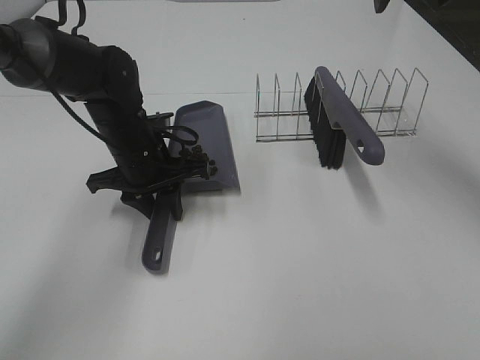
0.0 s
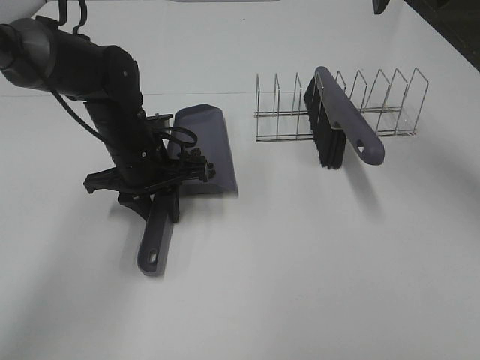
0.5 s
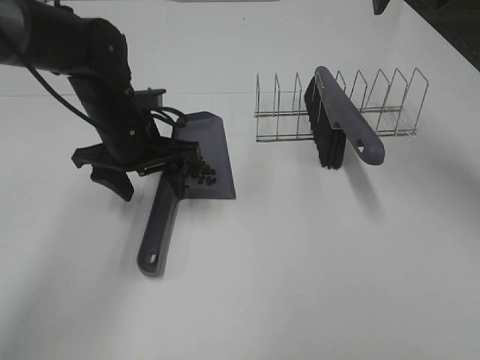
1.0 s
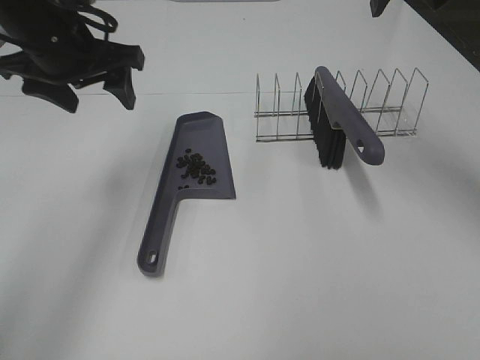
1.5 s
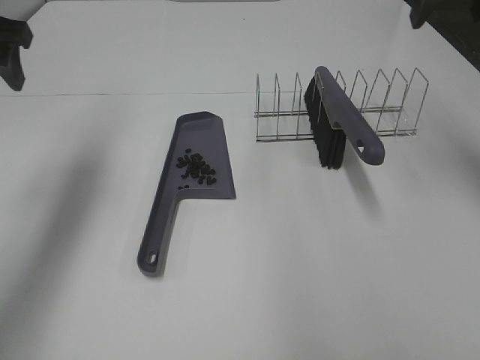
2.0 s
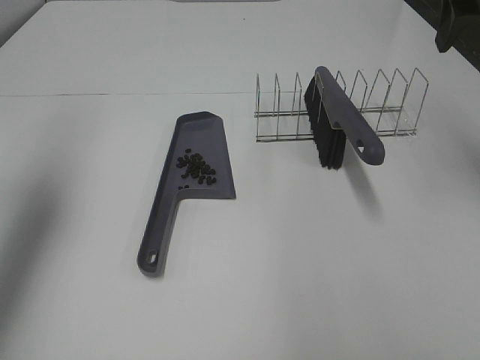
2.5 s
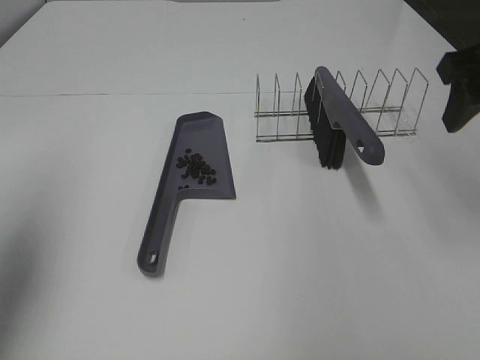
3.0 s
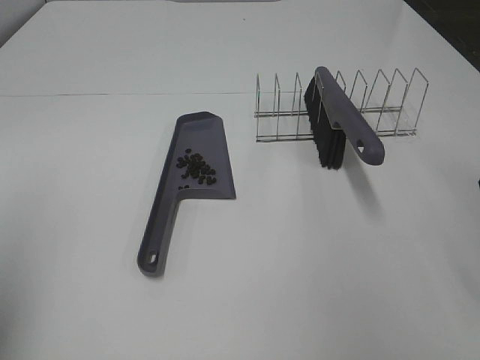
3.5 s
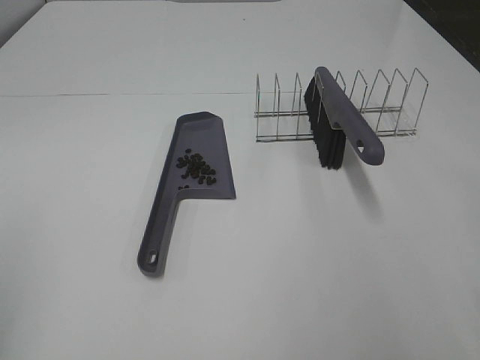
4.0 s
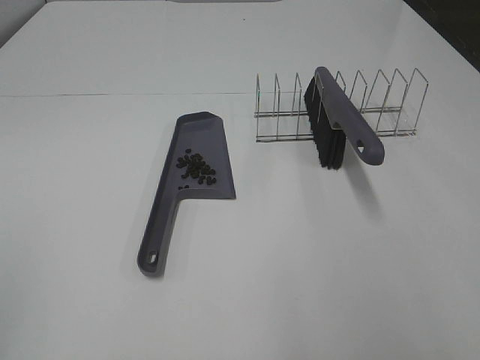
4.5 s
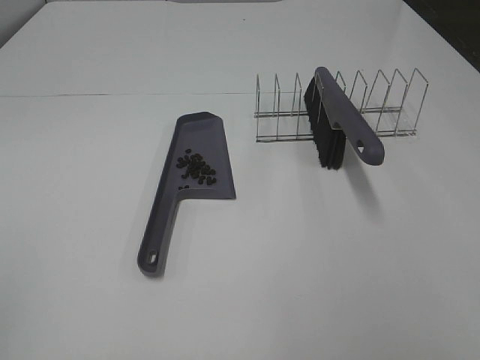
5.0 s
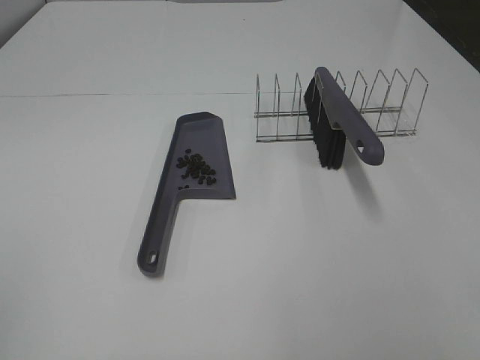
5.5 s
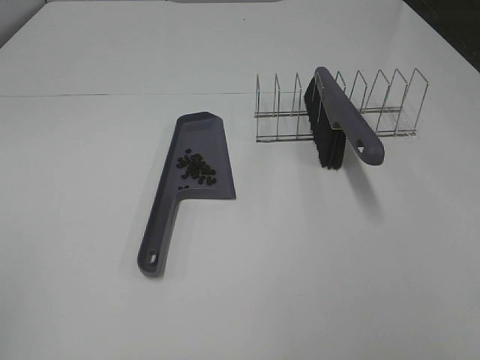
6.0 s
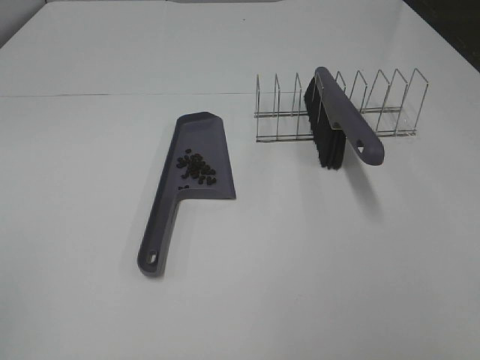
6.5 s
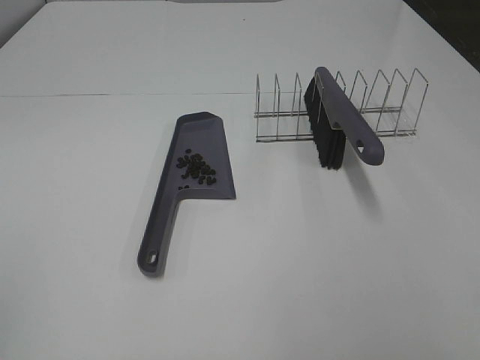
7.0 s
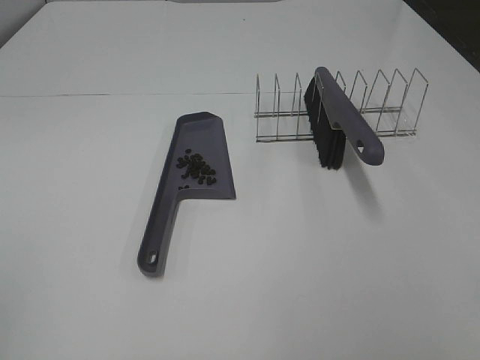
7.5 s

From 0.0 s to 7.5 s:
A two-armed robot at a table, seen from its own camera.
Task of the whole recording: Sweep Coffee Bean.
From 0.0 s to 2.0 s: The left gripper moves upward and to the left, some 25 cm, and opens its fingers; the right gripper moves to the right, some 5 cm.
From 2.0 s to 4.0 s: Both grippers travel together backward, approximately 30 cm.
From 5.5 s to 7.5 s: Both grippers stay put.

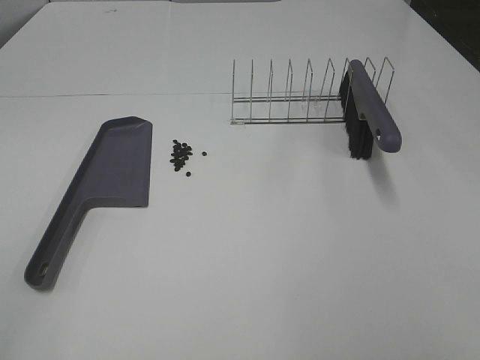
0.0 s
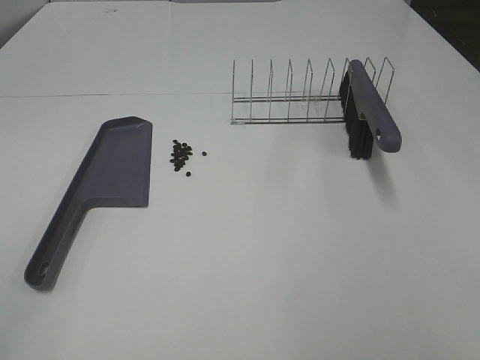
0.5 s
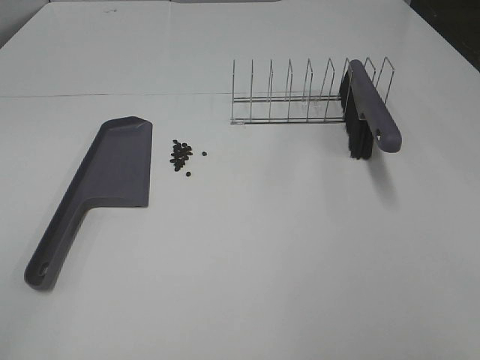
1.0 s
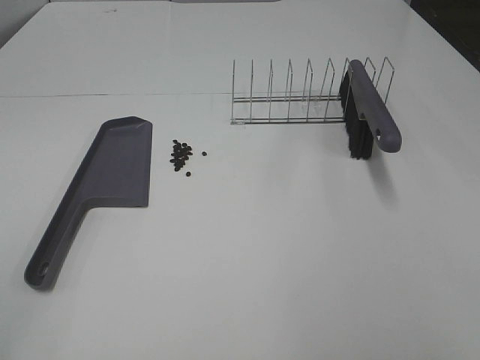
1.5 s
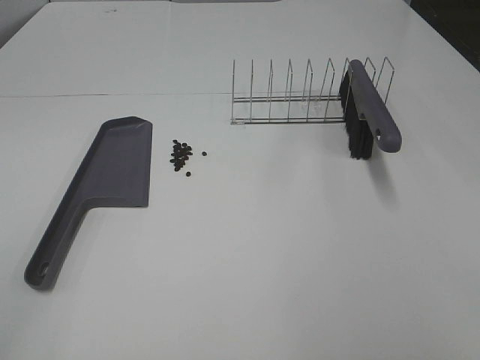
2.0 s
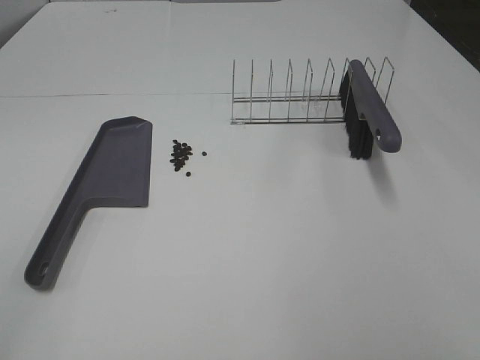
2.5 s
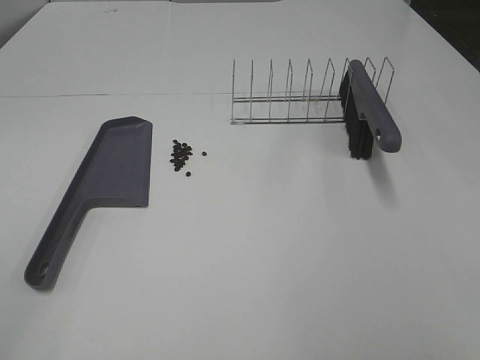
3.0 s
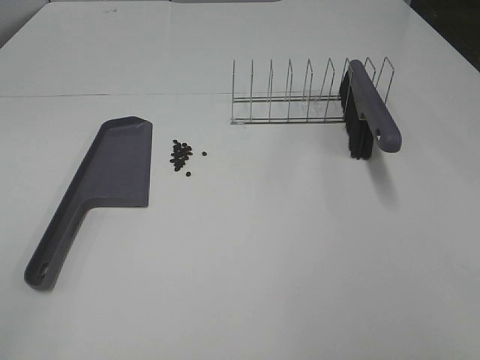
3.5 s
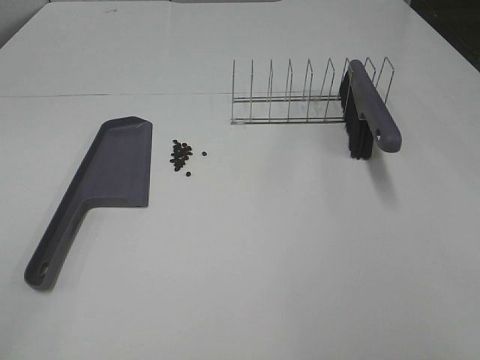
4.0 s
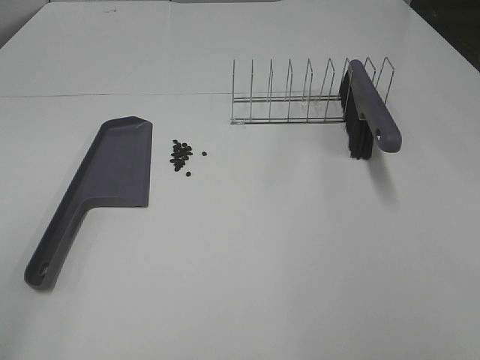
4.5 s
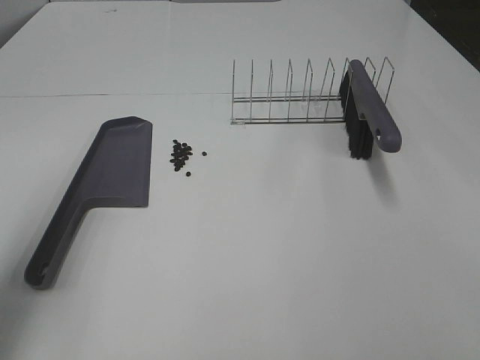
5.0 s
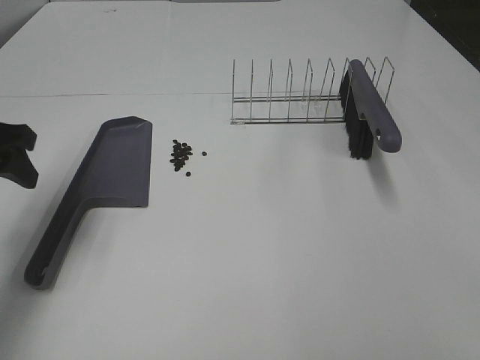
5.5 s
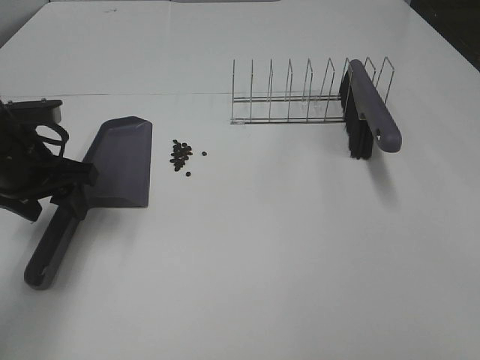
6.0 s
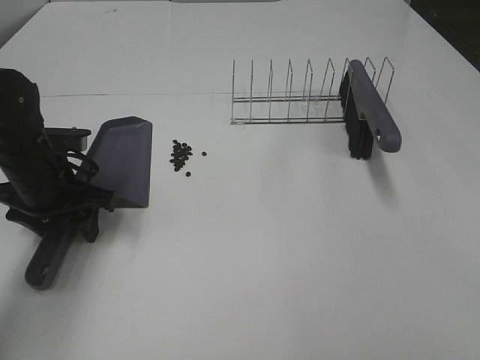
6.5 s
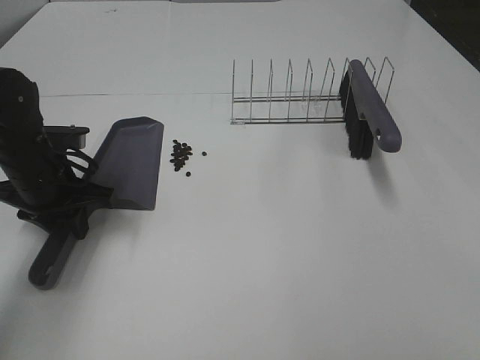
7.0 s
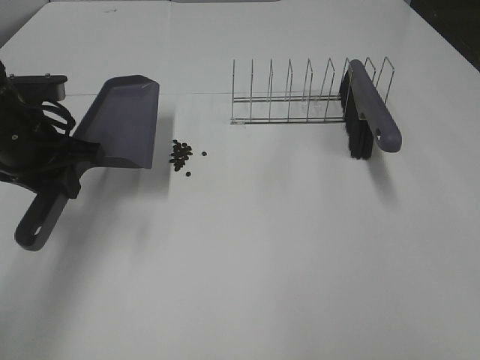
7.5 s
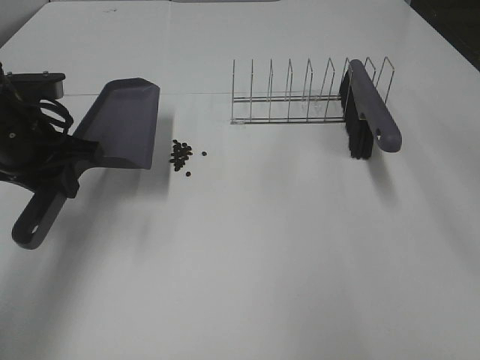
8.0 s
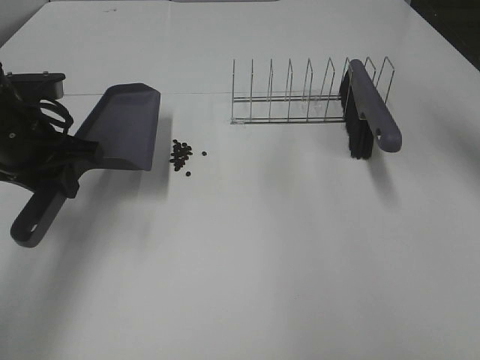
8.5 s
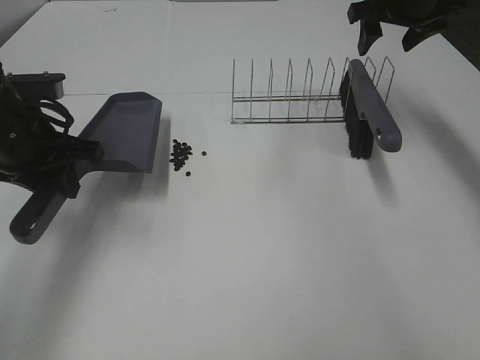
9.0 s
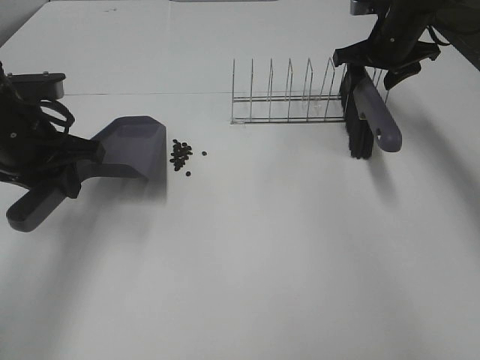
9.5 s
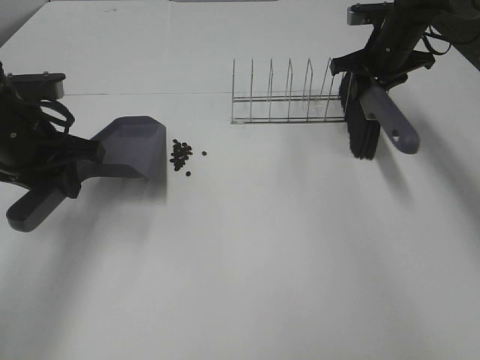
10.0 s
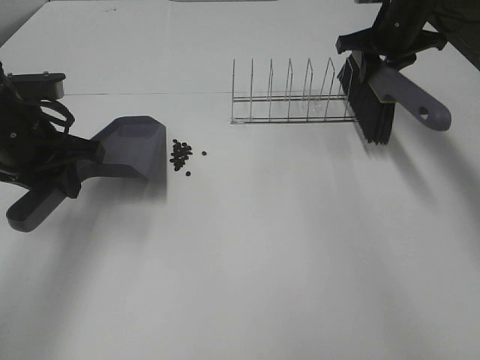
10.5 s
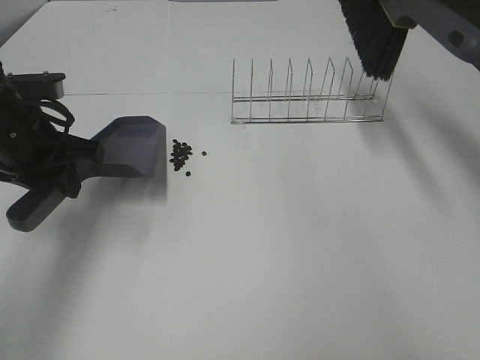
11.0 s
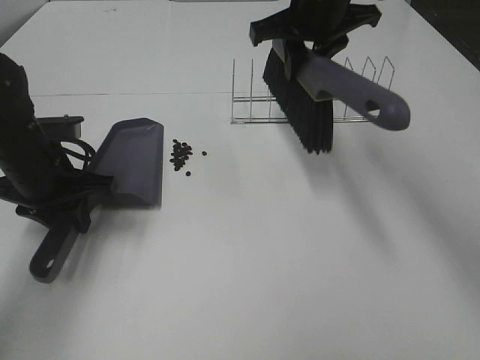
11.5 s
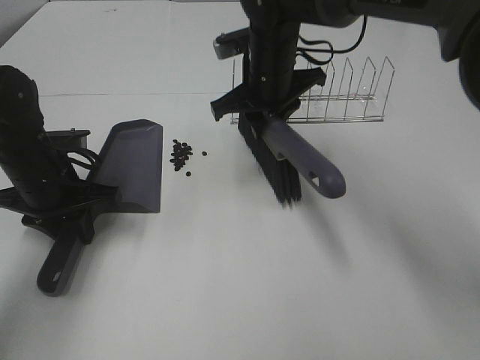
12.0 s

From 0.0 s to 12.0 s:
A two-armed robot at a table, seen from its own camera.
Task of the whole recording: Sweep Coffee Bean.
Step, from 0.0 s to 6.5 s: Left hand: grab the dustpan.
Step, from 7.5 s to 10.0 s: Right hand:grab the broom.
From 0.0 s to 4.0 s: Neither gripper changes place.
From 4.0 s to 6.0 s: The left gripper heads forward and downward, covering approximately 35 cm, and opens up.
From 6.0 s to 8.0 s: The right gripper heads forward, covering approximately 20 cm. The left gripper closes its fingers.
From 8.0 s to 10.0 s: The right gripper goes some 40 cm forward and downward, and closes its fingers.
From 10.0 s to 12.0 s: The right gripper moves to the left and backward, roughly 20 cm. Meanwhile the left gripper travels downward by about 10 cm.

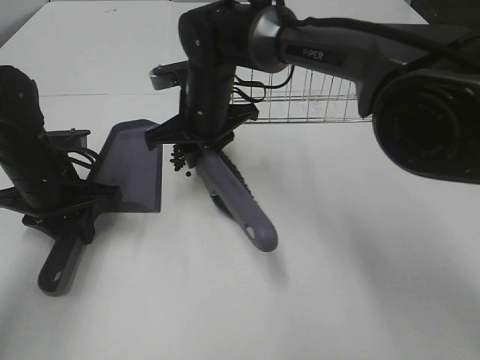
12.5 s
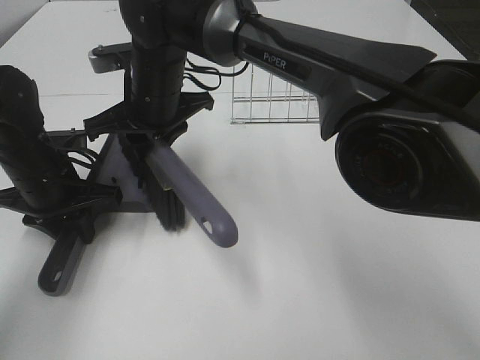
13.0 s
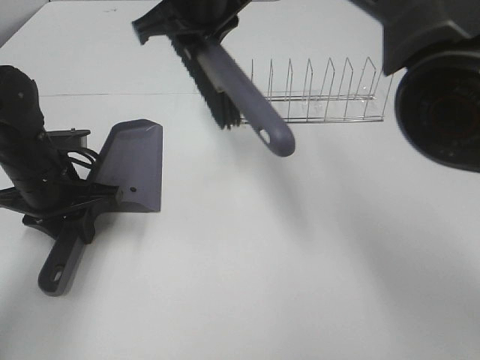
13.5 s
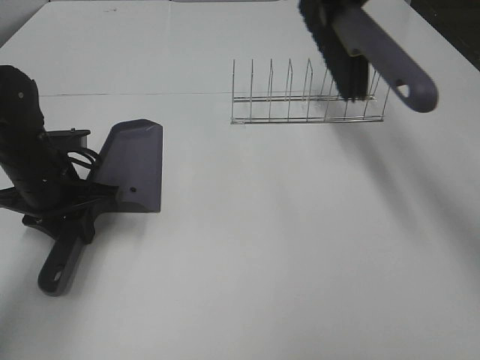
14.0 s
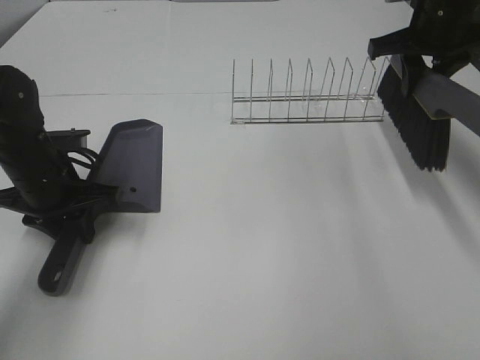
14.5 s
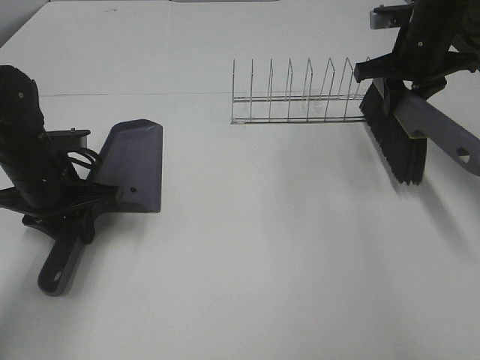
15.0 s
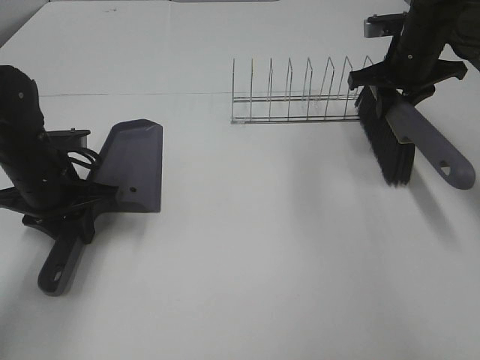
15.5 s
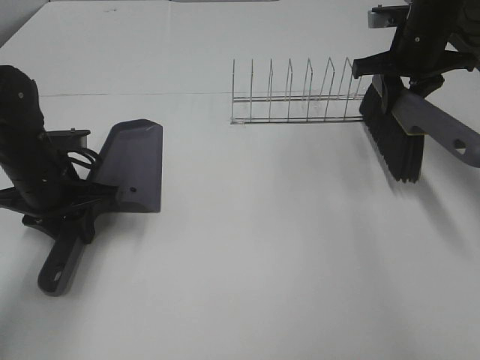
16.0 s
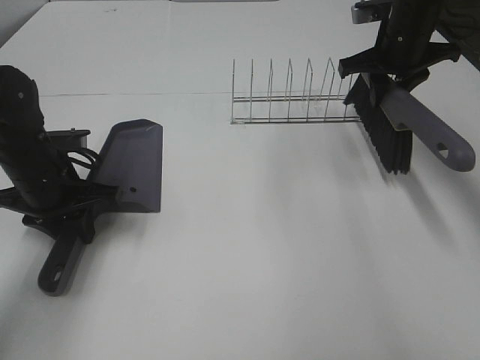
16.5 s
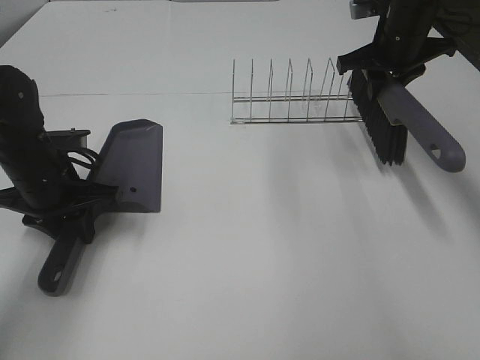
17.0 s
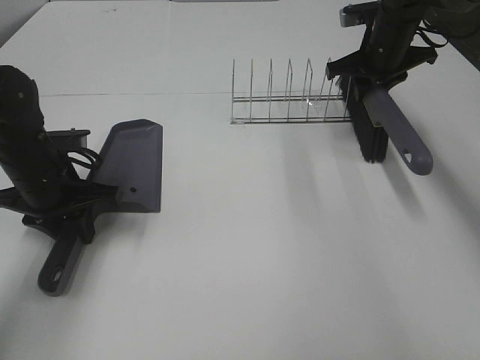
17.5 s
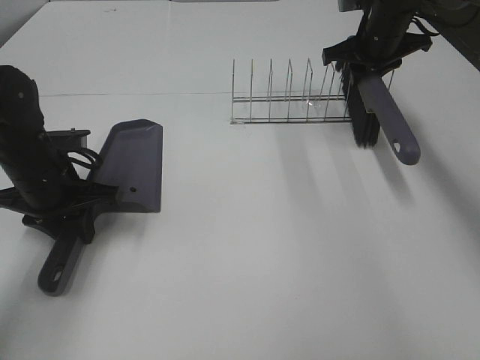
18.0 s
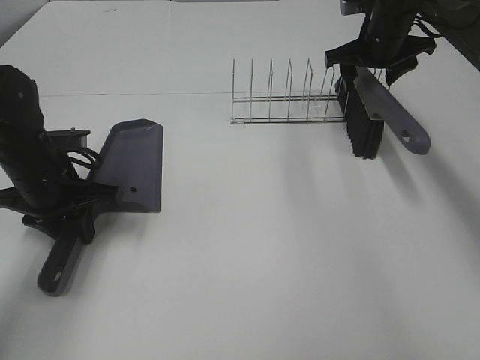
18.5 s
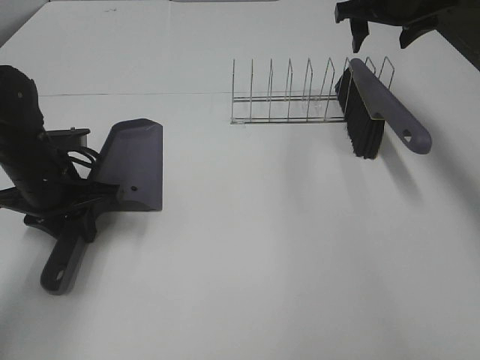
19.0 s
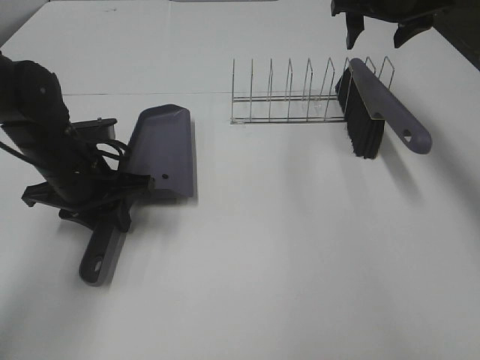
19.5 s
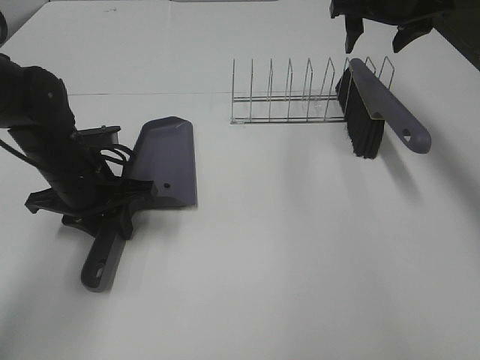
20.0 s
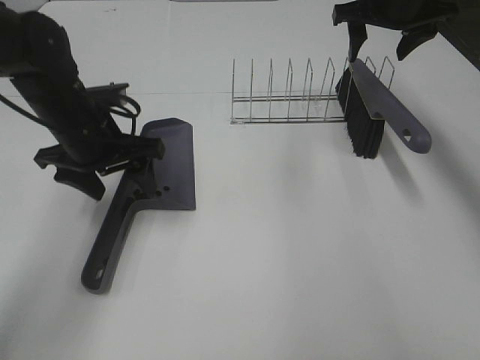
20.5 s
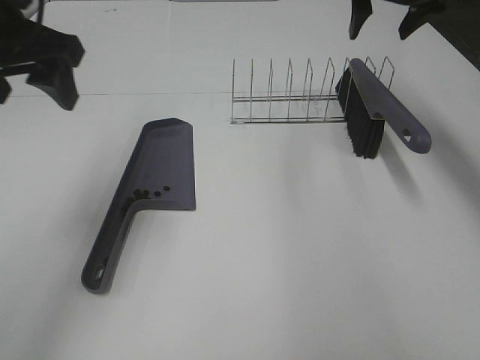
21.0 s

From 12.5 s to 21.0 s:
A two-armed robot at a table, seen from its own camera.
Task of the whole recording: Sweep Coffee Bean.
Step, from 13.5 s to 18.5 s: Right hand:place the broom on the rack.
Step, from 19.0 s to 20.0 s: Left hand:place the dustpan on the table.
From 12.5 s to 14.5 s: The right gripper shifts roughly 30 cm to the right.
From 14.5 s to 16.5 s: The right gripper shifts by roughly 5 cm.
From 16.5 s to 19.0 s: The right gripper travels upward by some 5 cm, and opens up.
From 19.0 s to 21.0 s: The left gripper is displaced upward by about 20 cm, and opens.
